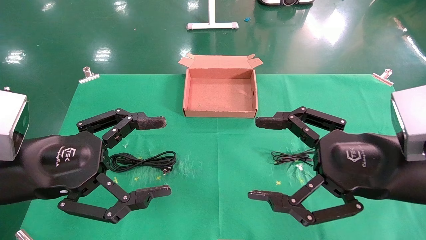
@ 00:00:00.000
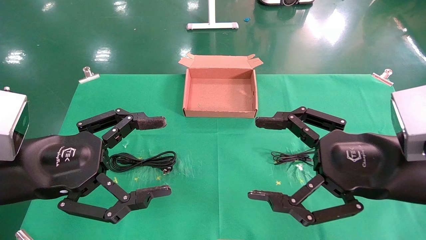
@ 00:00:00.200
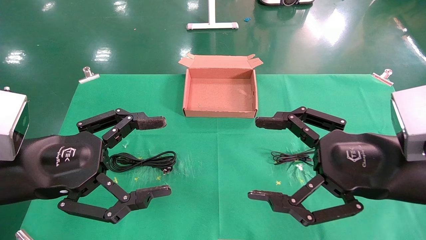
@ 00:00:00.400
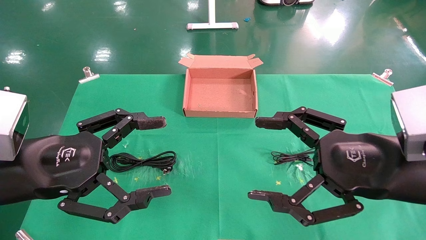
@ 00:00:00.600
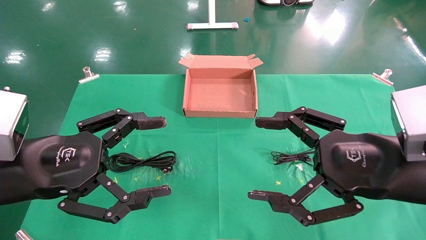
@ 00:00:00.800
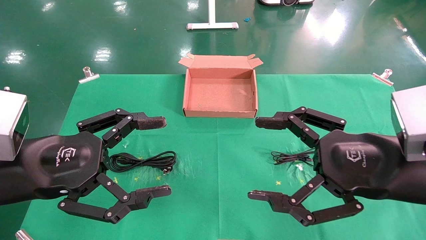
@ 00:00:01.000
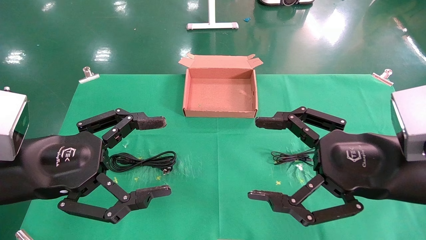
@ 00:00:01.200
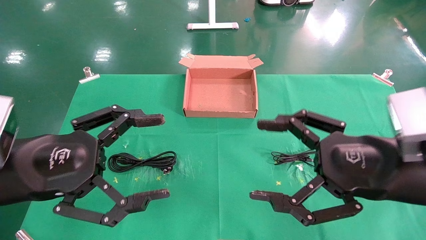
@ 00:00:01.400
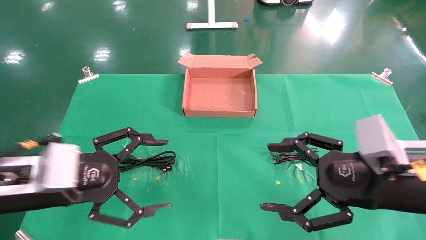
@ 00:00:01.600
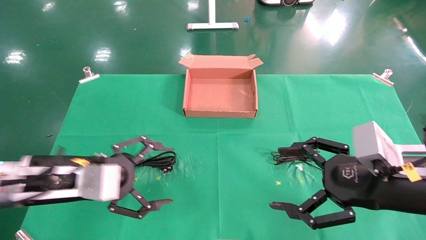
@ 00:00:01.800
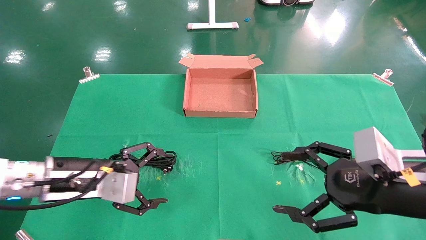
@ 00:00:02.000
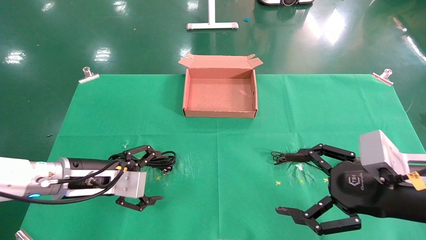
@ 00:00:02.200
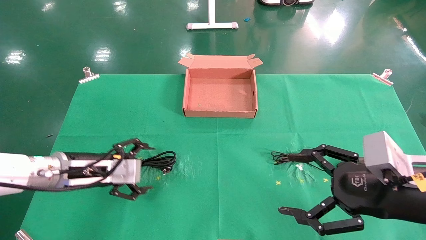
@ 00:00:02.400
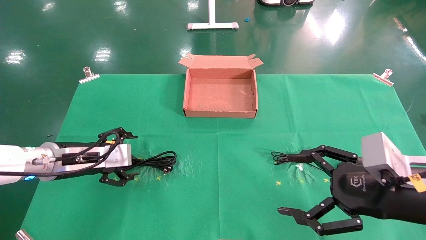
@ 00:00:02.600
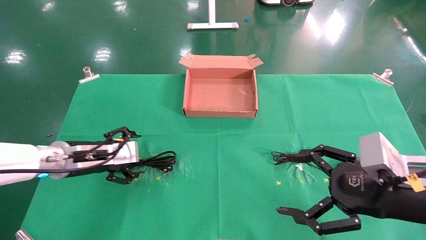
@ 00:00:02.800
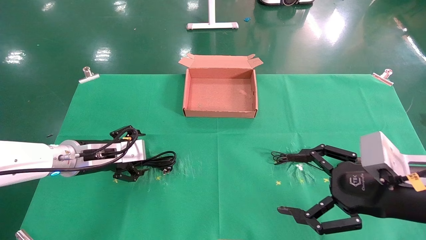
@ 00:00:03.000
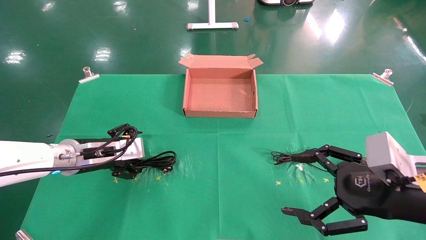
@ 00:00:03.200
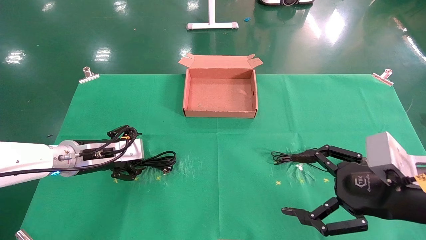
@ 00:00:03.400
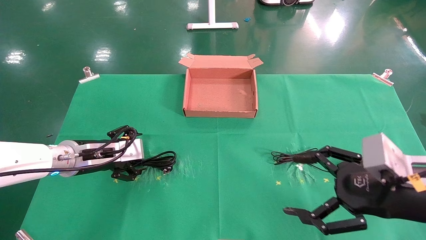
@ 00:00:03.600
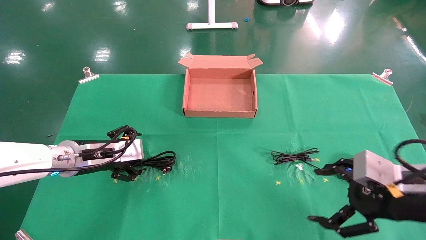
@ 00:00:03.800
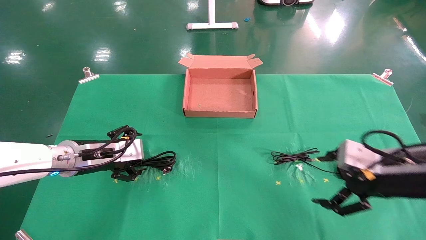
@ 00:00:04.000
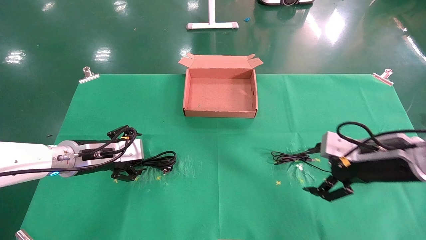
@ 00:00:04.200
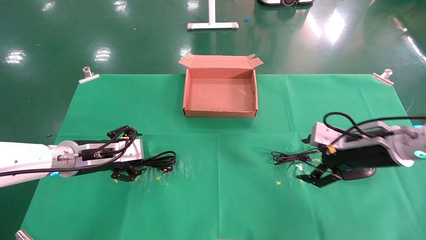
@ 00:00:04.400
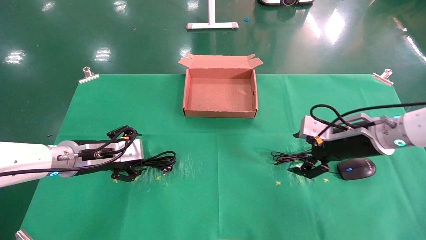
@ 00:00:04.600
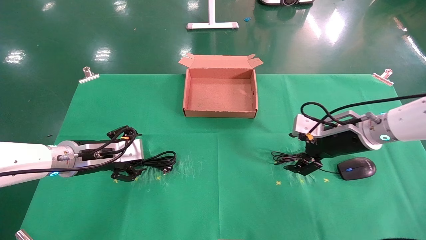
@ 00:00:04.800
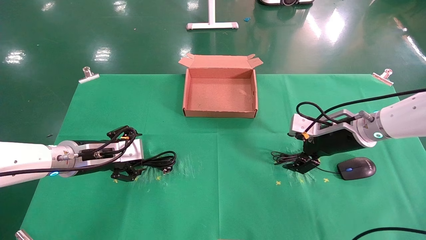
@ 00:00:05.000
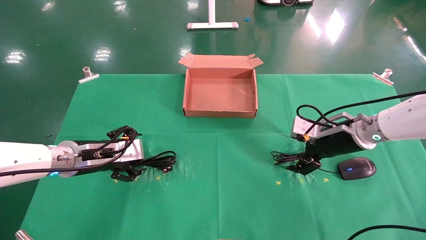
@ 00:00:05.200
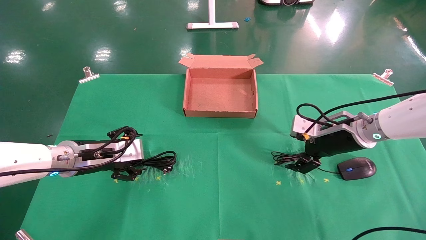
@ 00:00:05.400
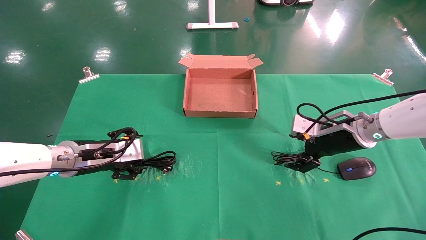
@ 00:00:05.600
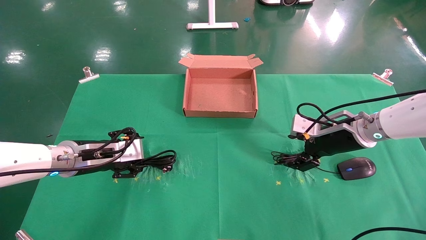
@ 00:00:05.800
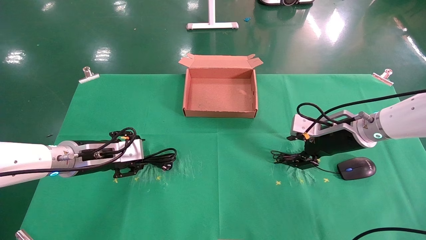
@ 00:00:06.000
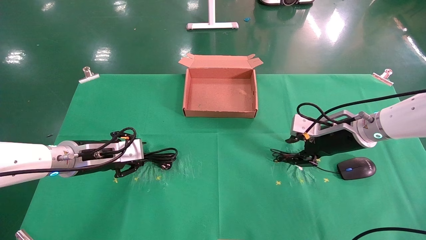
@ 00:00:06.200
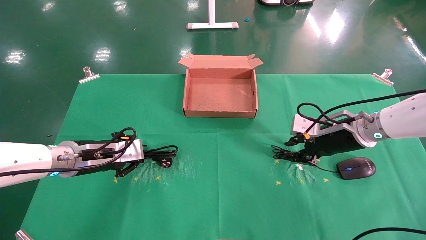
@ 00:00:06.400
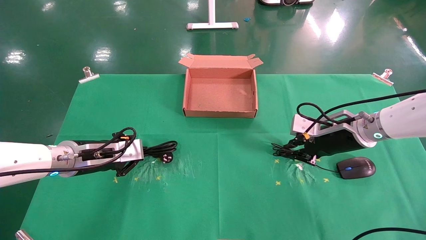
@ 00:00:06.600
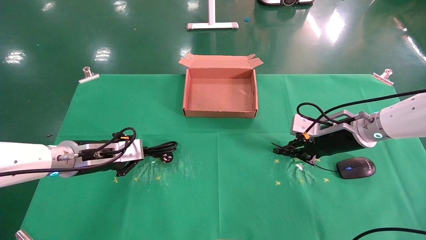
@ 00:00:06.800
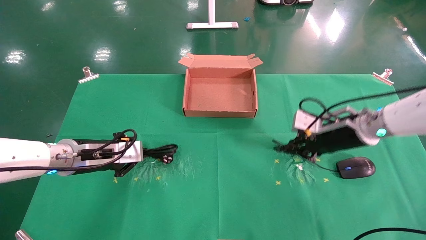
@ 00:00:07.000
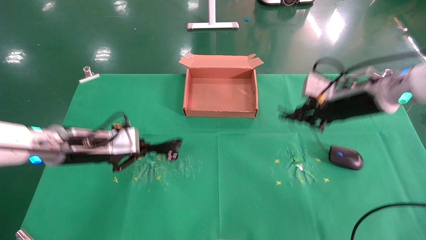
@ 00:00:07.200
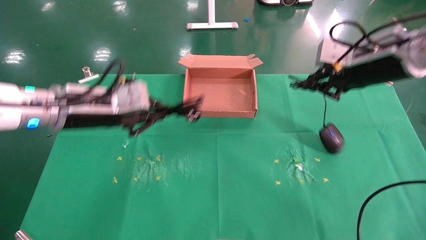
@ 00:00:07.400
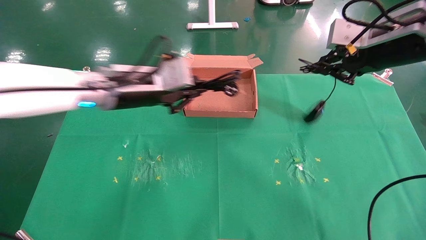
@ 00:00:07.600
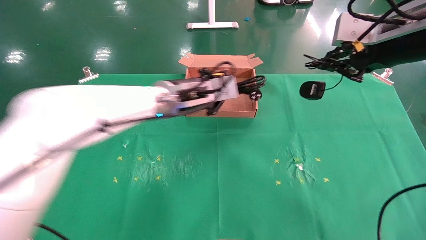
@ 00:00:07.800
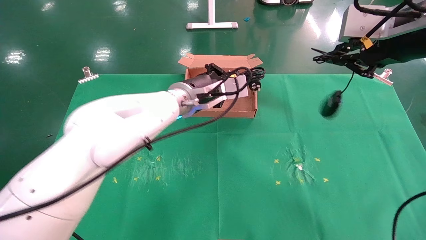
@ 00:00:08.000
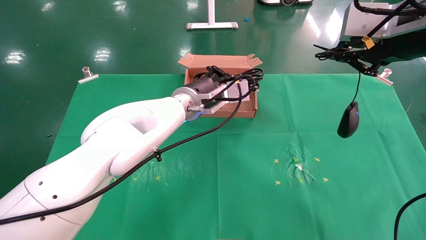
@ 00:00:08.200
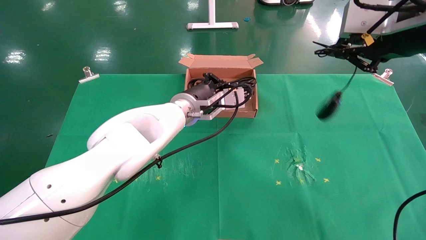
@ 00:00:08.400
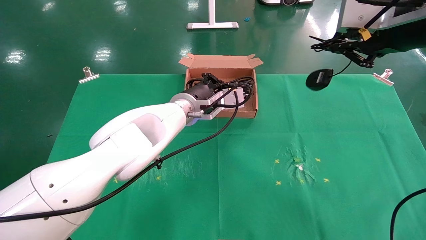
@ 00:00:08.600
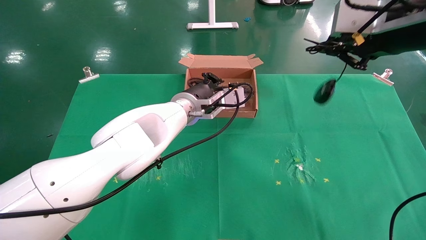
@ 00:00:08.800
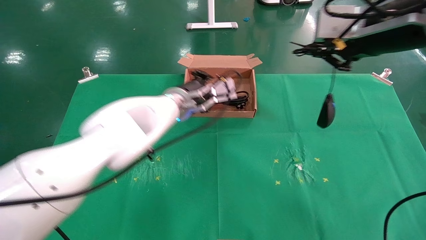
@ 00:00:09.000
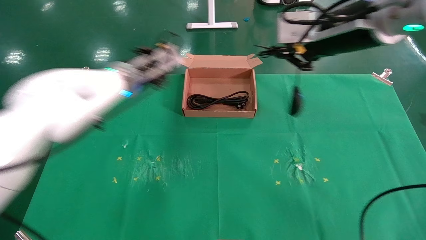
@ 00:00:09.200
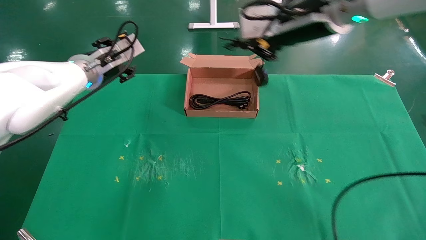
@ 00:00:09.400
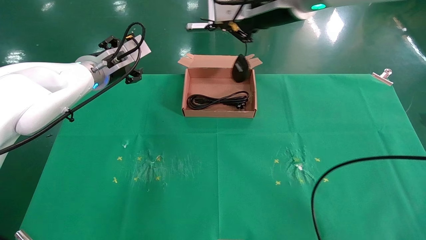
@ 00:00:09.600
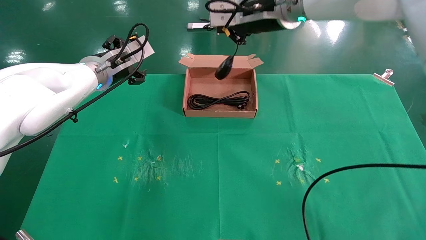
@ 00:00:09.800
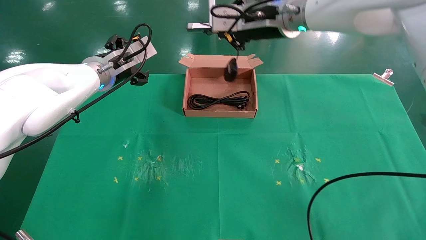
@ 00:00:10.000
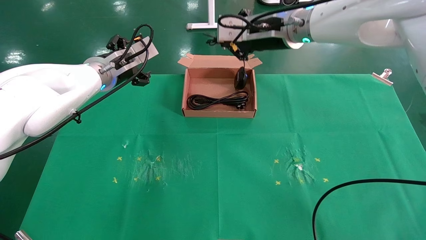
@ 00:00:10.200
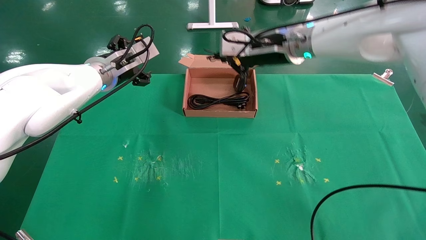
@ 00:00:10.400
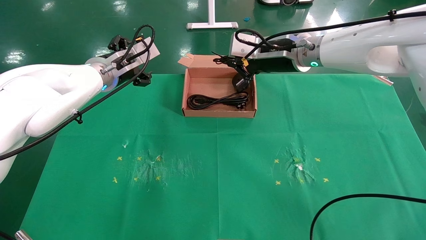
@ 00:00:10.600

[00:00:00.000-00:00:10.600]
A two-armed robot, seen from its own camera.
Task of the whole recording: grasp data cable left put into box grasp mouse right put into box.
Step, 00:00:01.400 to 00:00:06.600: Simultaneously pick up the mouse and power cord from the accessory packaging area.
00:00:00.000 to 00:00:01.600: The left gripper ends up roughly 5 cm from where it was.
00:00:01.600 to 00:00:03.000: The left gripper moves forward, roughly 10 cm.
00:00:03.000 to 00:00:04.600: The right gripper heads forward, covering approximately 15 cm.
00:00:04.600 to 00:00:06.000: The left gripper closes its fingers.
00:00:06.000 to 00:00:07.600: The left gripper is displaced to the right and upward by some 15 cm, and closes its fingers. The right gripper travels upward by some 20 cm, and closes.
00:00:07.600 to 00:00:09.000: The right gripper is displaced to the left by roughly 5 cm. The left gripper shifts some 5 cm forward.
00:00:09.000 to 00:00:10.600: The left gripper heads to the left, covering approximately 10 cm, and opens its fingers. Meanwhile the right gripper is displaced forward, to the left and downward by approximately 20 cm.

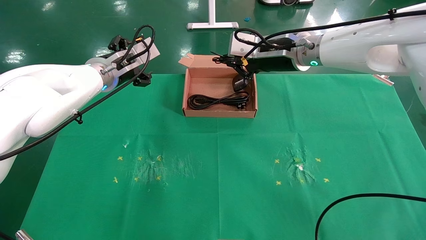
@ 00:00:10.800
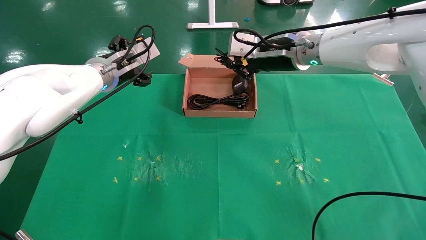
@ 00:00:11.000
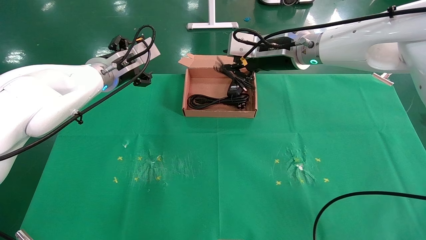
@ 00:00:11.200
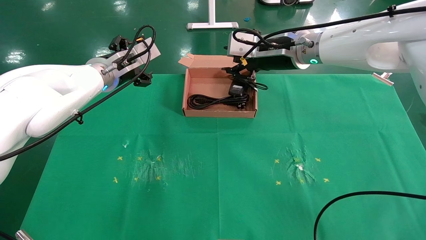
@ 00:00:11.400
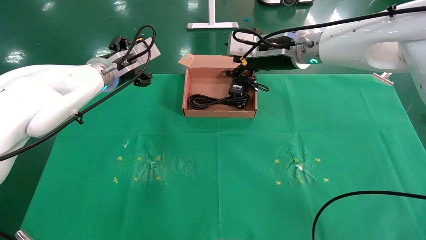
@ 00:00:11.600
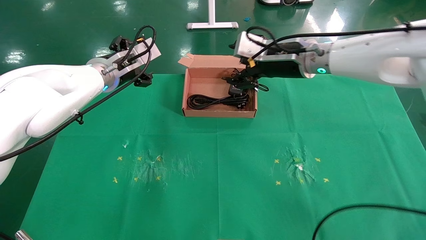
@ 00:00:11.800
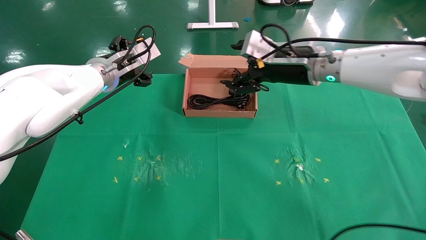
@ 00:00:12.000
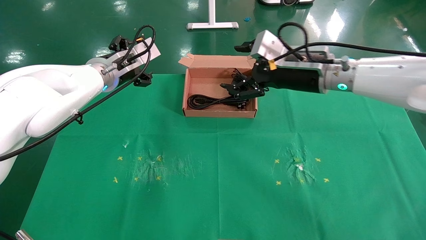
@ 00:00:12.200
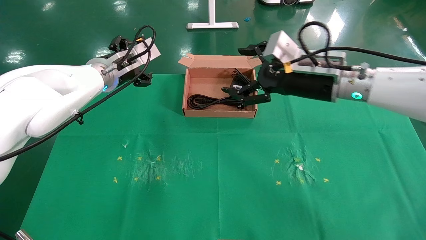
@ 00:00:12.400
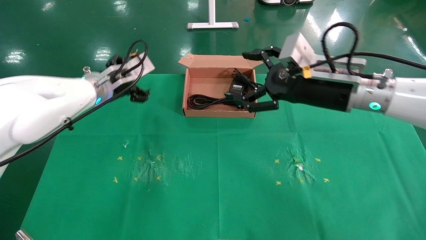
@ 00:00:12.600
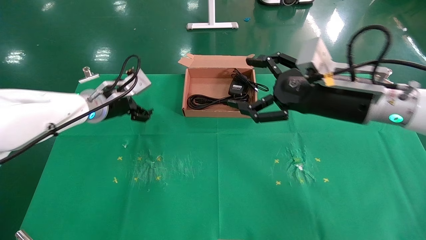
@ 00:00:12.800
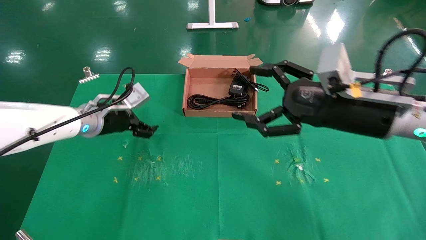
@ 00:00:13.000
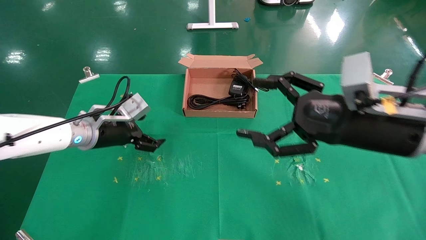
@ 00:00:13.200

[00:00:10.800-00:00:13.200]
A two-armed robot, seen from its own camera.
Task of the whole recording: grasp data cable left put into box grasp mouse right put into box.
00:00:10.800 to 00:00:12.000: The right gripper opens.
00:00:12.000 to 00:00:13.200: The right gripper heads backward and to the right, covering approximately 15 cm; the left gripper travels downward and backward by approximately 10 cm.
